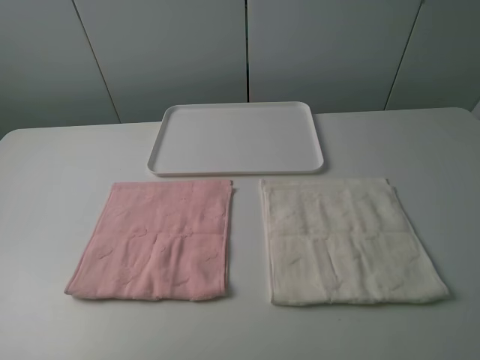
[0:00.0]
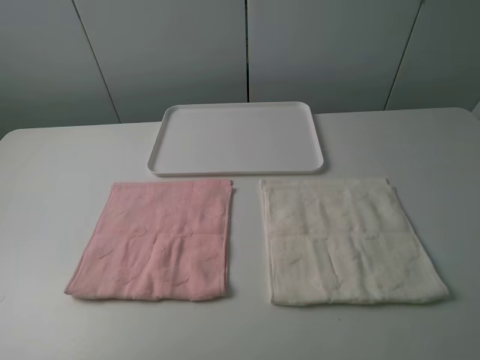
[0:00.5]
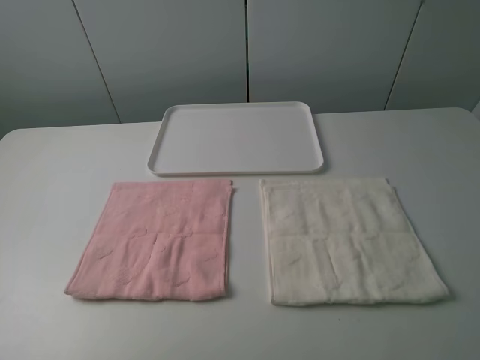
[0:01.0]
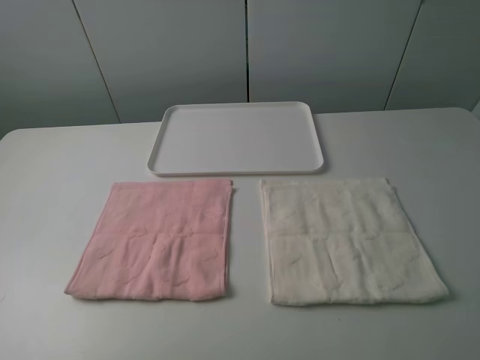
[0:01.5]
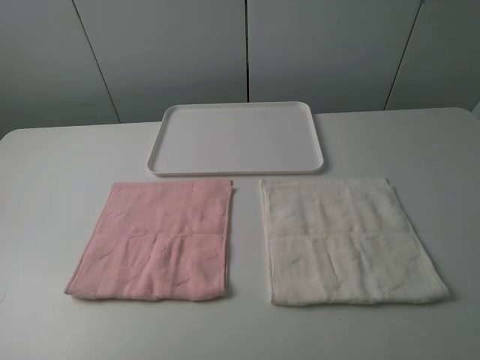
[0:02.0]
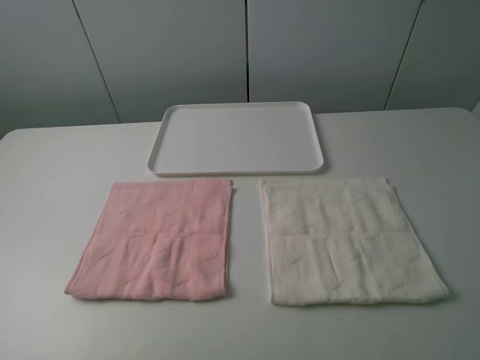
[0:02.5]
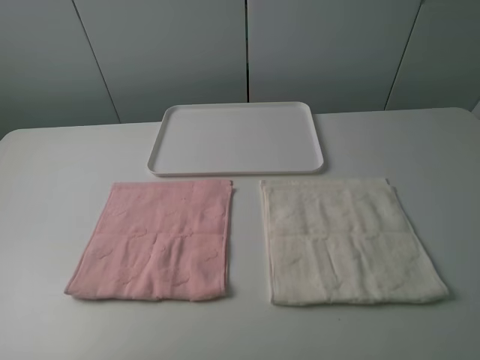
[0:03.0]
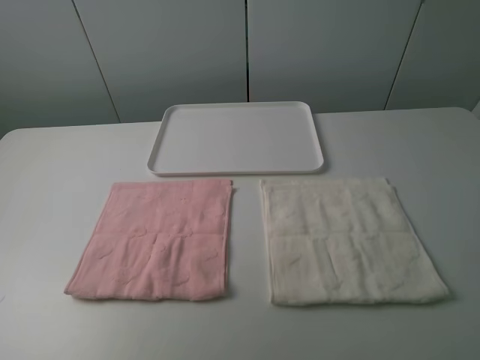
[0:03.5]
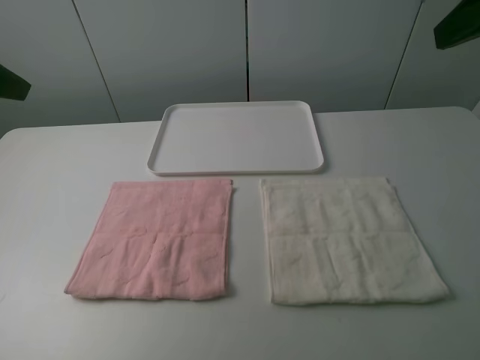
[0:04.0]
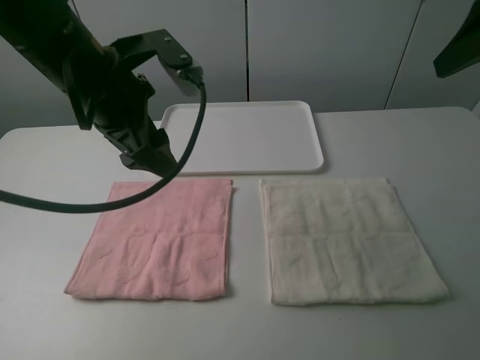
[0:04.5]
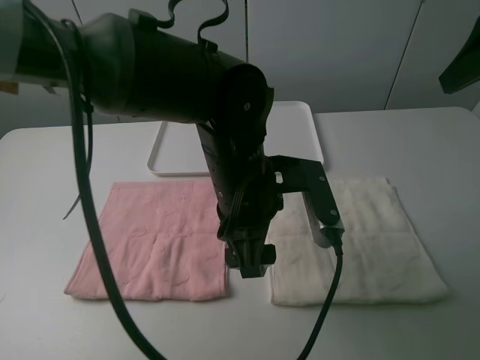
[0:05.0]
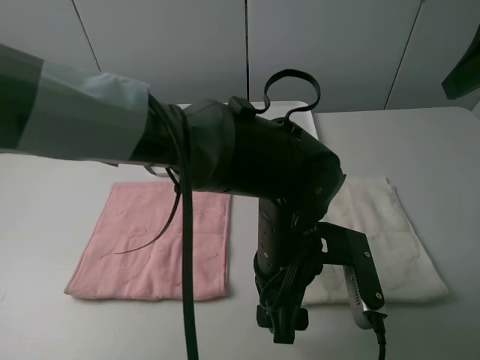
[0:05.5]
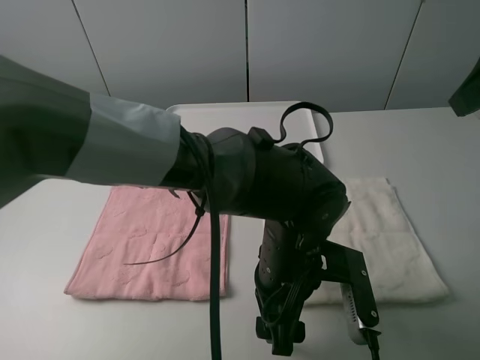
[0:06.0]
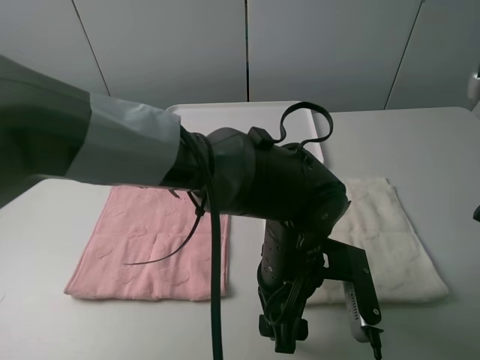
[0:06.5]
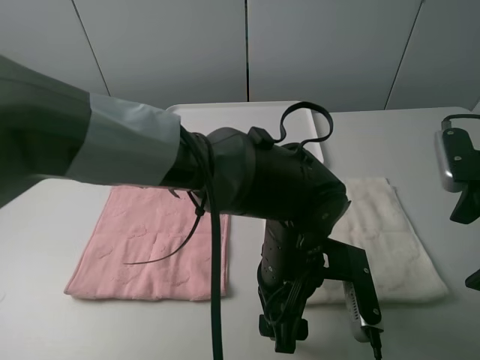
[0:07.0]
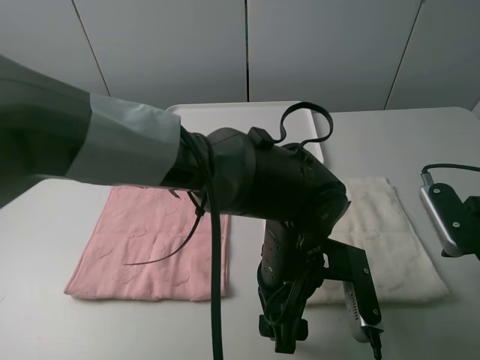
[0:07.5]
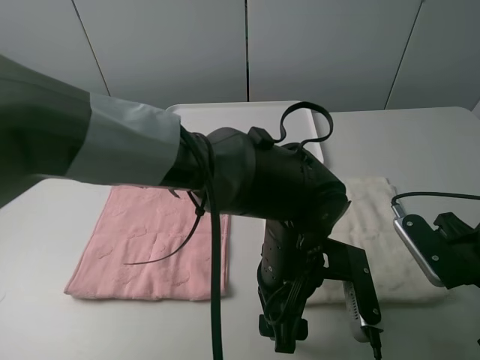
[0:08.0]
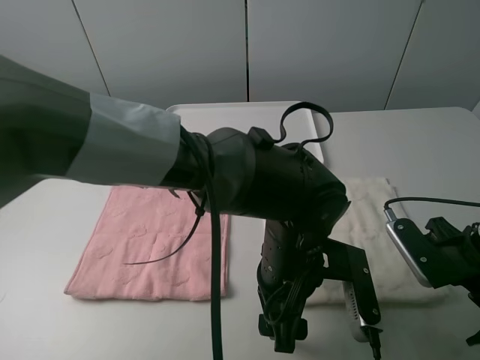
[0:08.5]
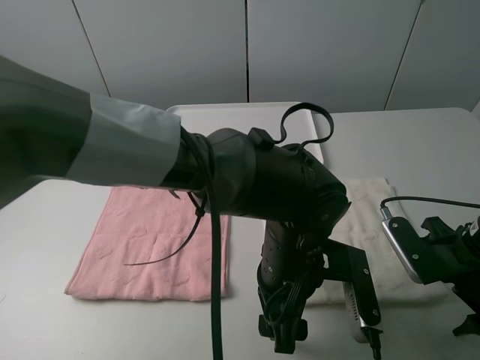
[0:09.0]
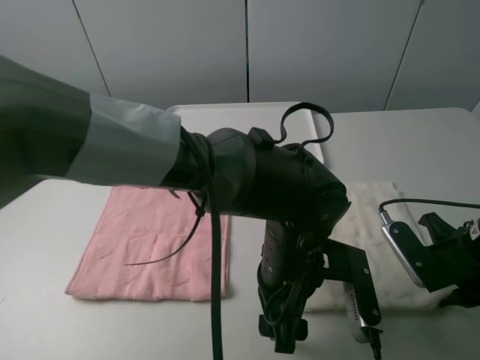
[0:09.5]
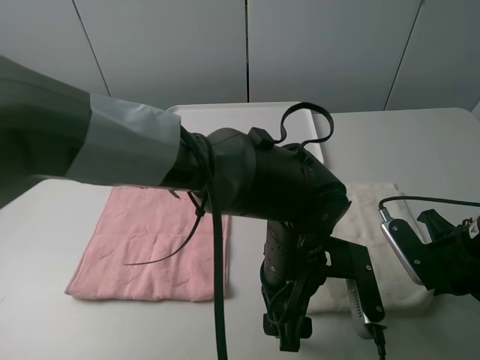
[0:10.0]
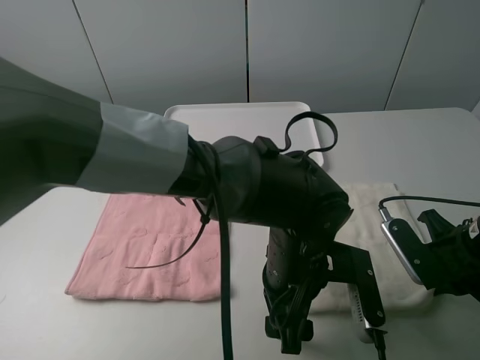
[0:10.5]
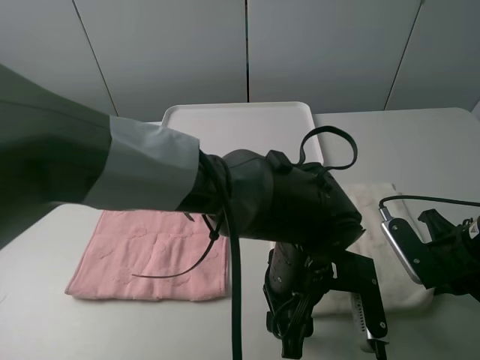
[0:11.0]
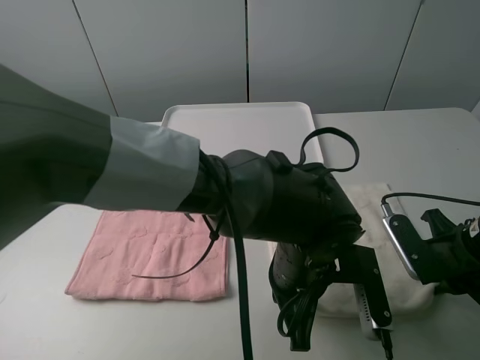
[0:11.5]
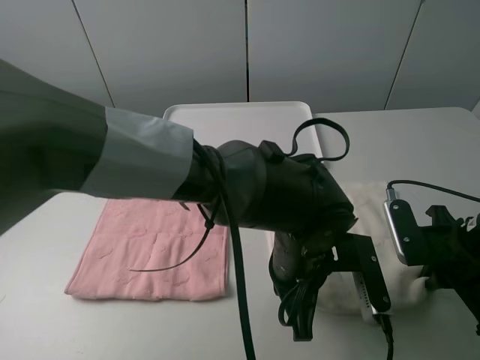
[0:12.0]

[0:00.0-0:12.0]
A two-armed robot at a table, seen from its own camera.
Task of the whole recording: fold one of the towels by two grippers and place it on the tray,then fold another towel by two grippers and place it on the folded towel.
Step, 0.0 to 11.0 s: Grasp the white towel with the left gripper.
0.0 to 2.0 s: Neither gripper changes place.
2.0 to 4.0 s: The right gripper travels forward by roughly 20 cm.
4.0 to 6.0 s: The left gripper is displaced to the right and downward by approximately 40 cm.
6.0 to 8.0 s: The right gripper goes roughly 20 cm downward.
8.0 to 10.0 s: The right gripper closes its fingers.
10.0 to 12.0 s: The left gripper closes its fingers.

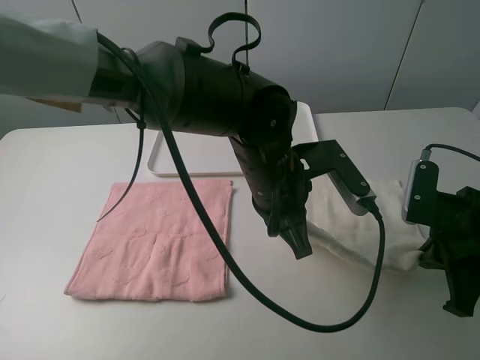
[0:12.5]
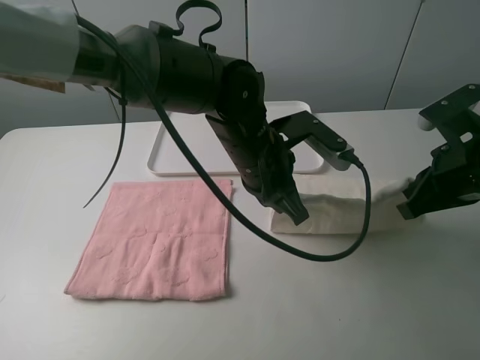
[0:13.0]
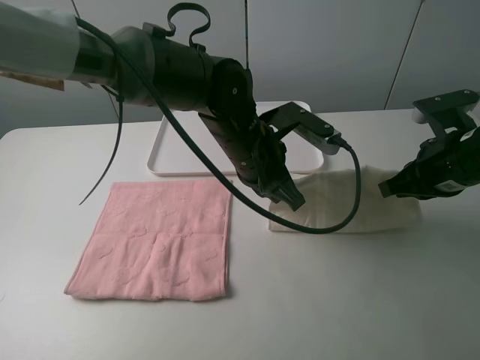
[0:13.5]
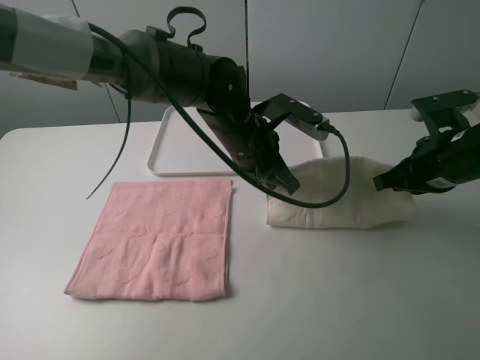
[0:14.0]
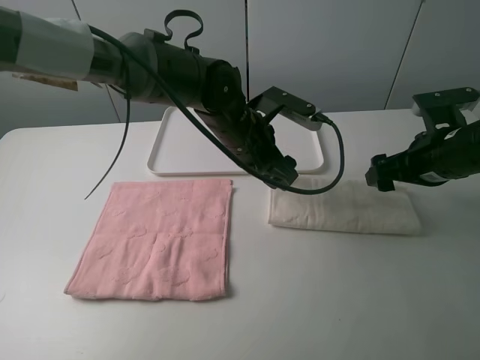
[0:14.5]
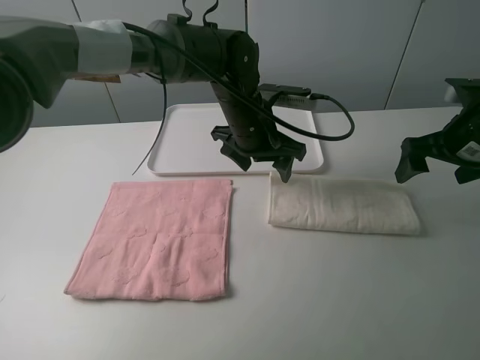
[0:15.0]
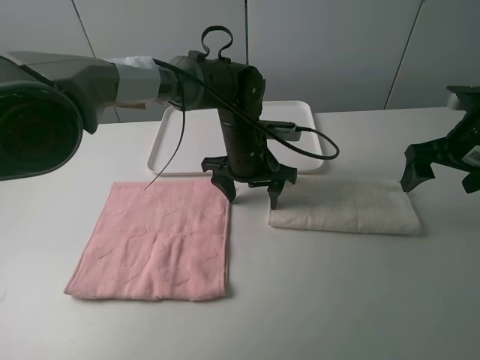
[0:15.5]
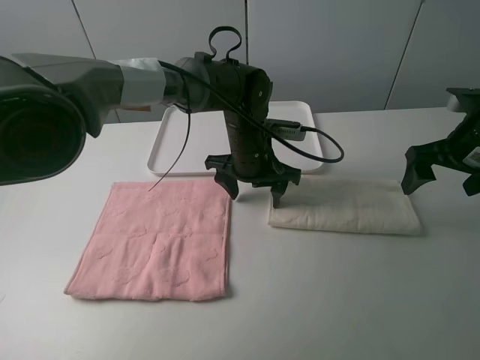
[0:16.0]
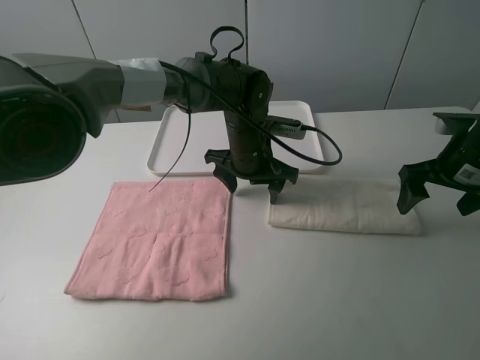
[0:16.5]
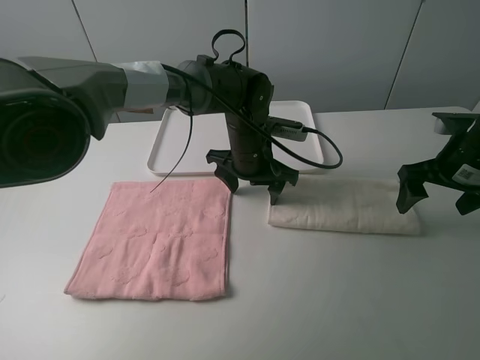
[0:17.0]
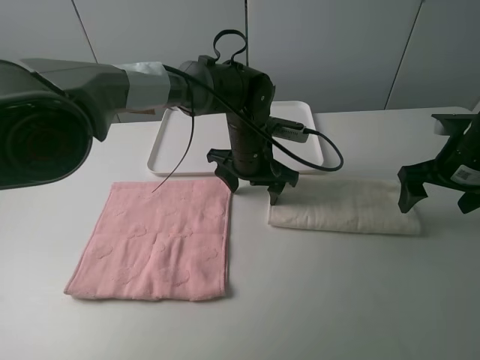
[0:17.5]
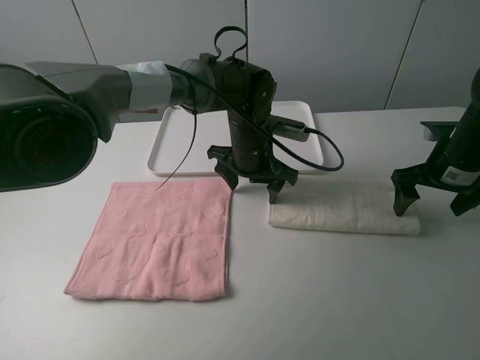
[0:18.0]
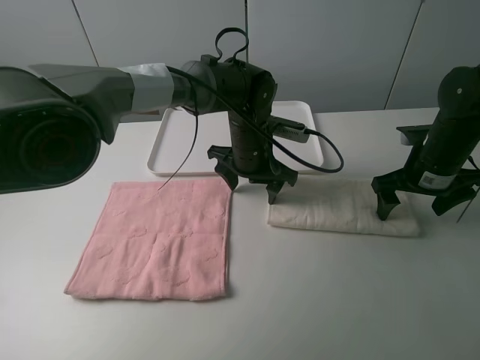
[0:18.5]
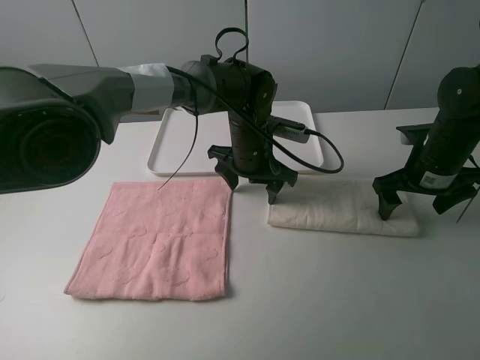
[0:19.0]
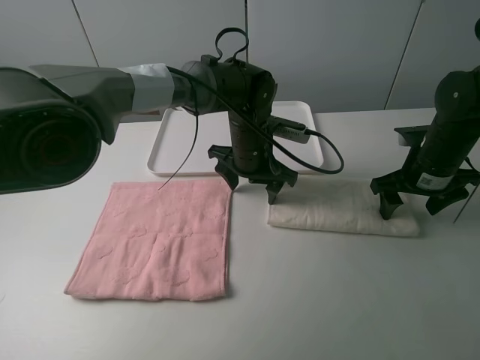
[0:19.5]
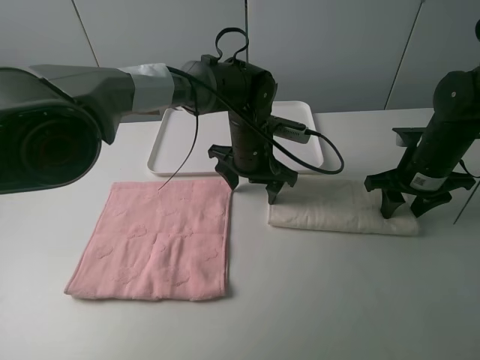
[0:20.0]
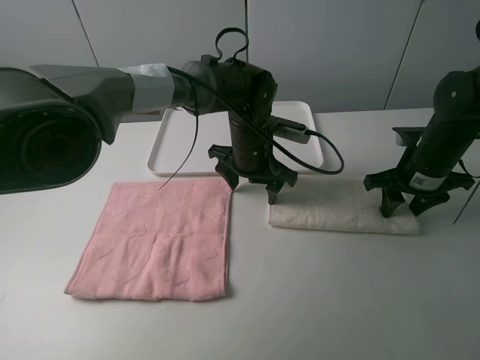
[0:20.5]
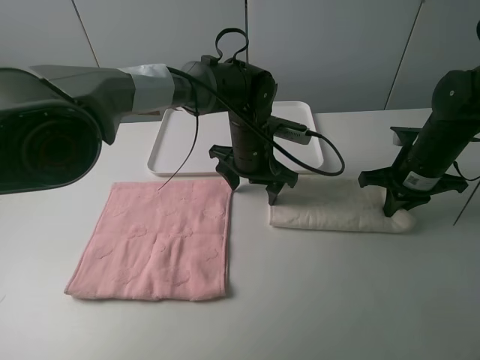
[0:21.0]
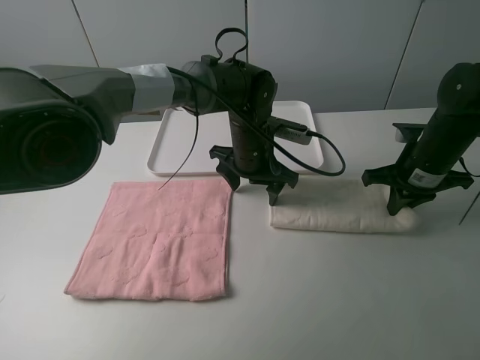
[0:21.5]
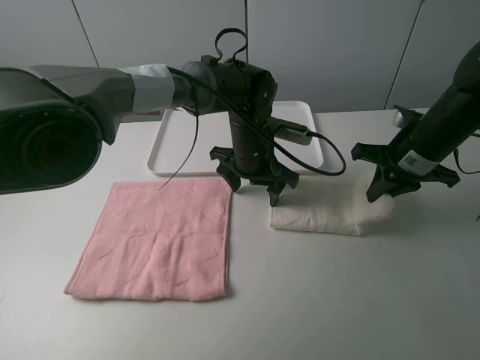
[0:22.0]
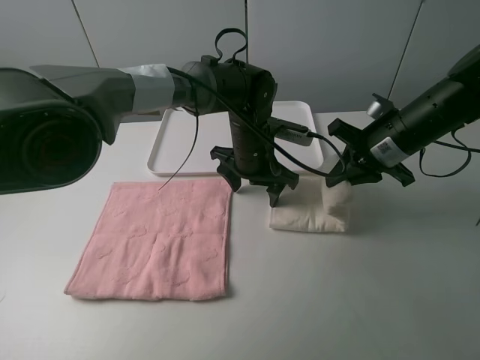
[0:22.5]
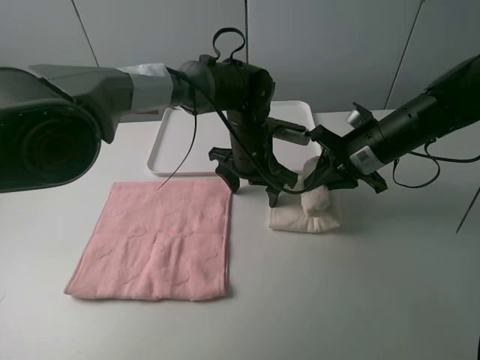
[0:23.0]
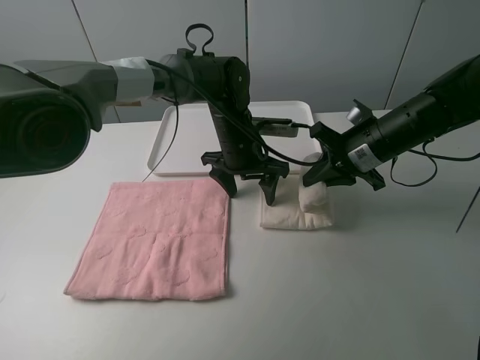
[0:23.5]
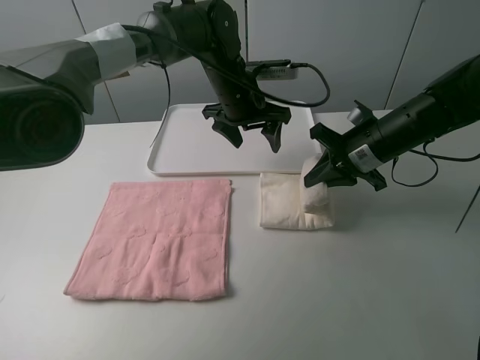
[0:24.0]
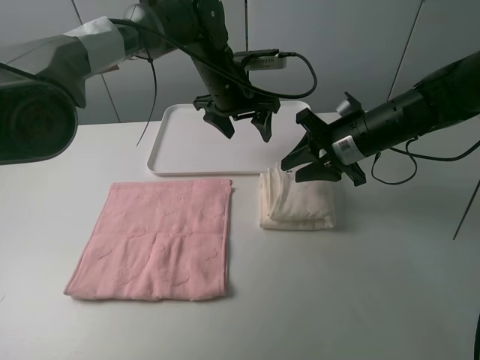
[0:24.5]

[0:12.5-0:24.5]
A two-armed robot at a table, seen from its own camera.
Task of the whole recording: fold one of the towels by two grippers and place it on the tray,then fold another towel by two grippers and place it on the folded towel.
Step, 12.5 to 14.5 s: Fold the white towel upwards with the left gripper.
Step, 15.0 to 17.5 s: Press the white towel with the left gripper.
Step, 18.0 to 21.0 s: Grasp the white towel with the right gripper.
12.5 to 14.5 s: Both grippers travel together forward, some 10 cm. The right gripper opens up. Meanwhile the left gripper opens its fingers.
14.5 to 16.5 s: The left gripper shifts by some 5 cm.
16.5 to 18.5 s: The right gripper moves about 5 cm.
18.5 to 20.5 s: The right gripper closes up.
20.5 to 22.5 s: The right gripper is displaced to the left and upward by about 10 cm, and closes its fingers.
22.5 to 24.5 s: The left gripper shifts approximately 10 cm upward and forward.

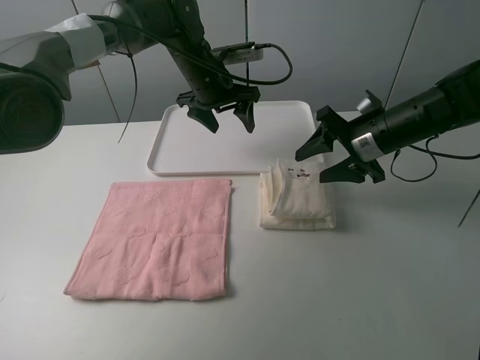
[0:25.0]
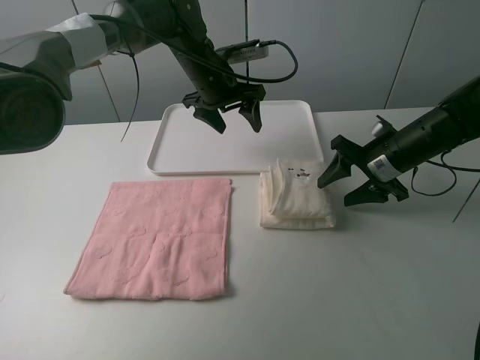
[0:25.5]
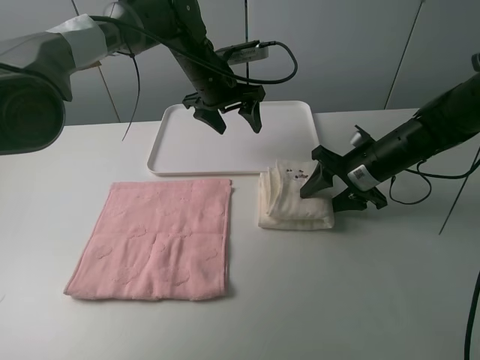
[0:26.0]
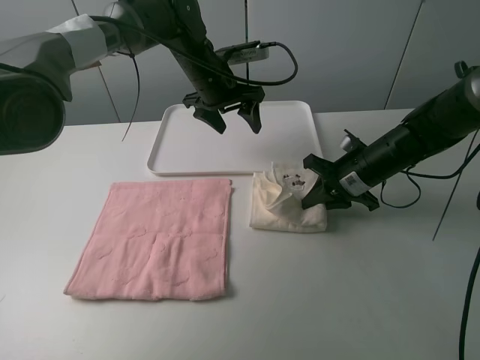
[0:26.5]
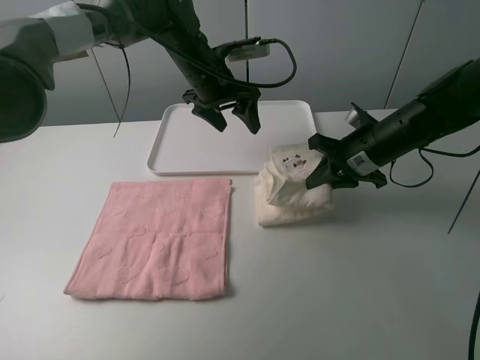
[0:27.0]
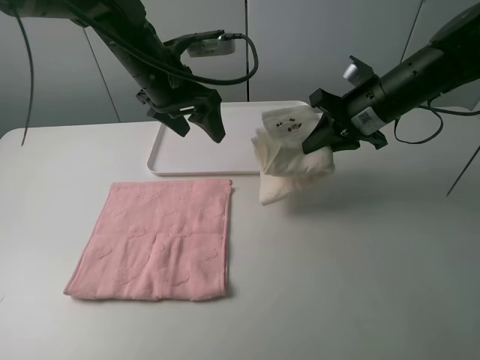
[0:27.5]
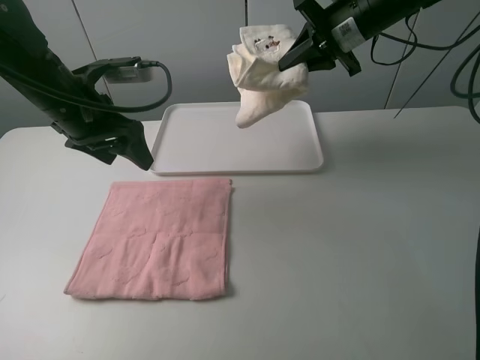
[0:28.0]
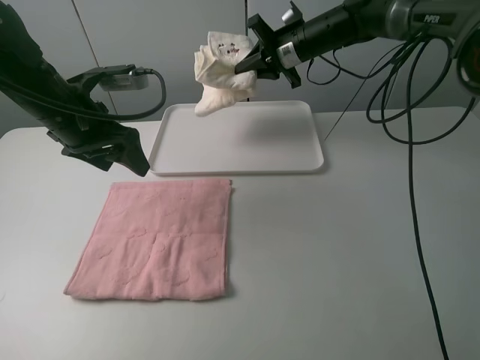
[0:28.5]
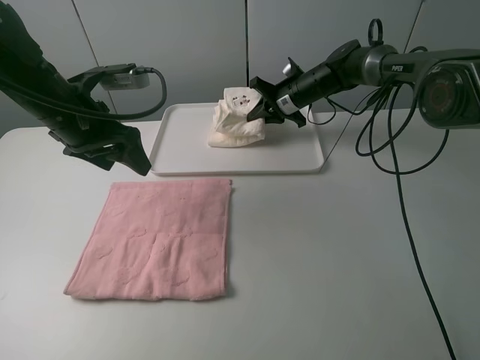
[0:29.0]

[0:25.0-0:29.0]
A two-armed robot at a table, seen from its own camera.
Task of the whole recording: fold one of the towels by two grippers and place it on the tray,then fold another towel by two grippers and place it on the folded towel.
Step, 25.5 to 26.5 s: Grasp the white towel with the right gripper.
25.0 to 27.0 s: The right gripper closes up.
27.0 to 29.0 s: The left gripper shifts approximately 20 cm to the left and backward. The right gripper is displaced forward and to the left by roughly 20 cm.
